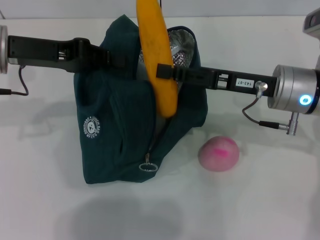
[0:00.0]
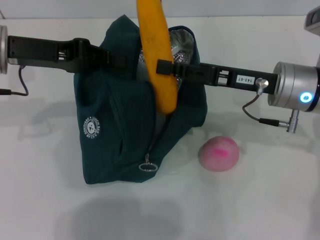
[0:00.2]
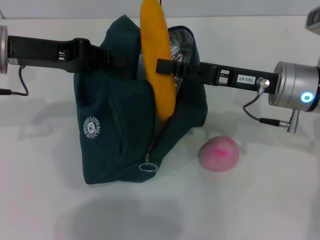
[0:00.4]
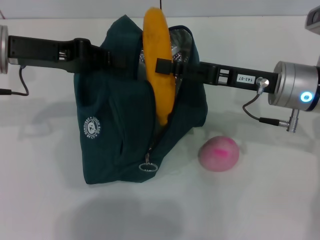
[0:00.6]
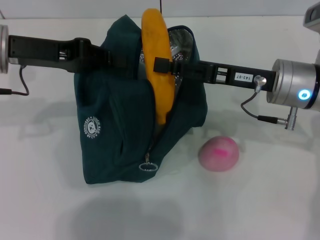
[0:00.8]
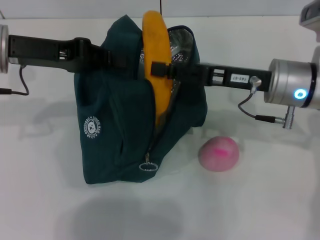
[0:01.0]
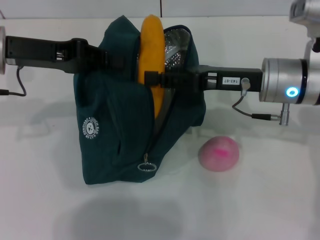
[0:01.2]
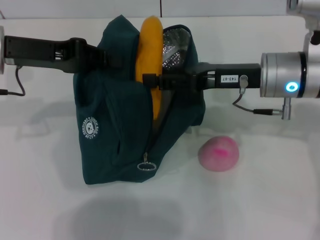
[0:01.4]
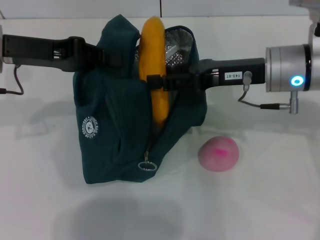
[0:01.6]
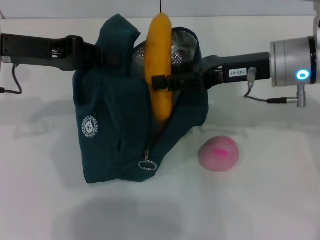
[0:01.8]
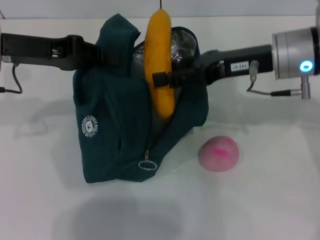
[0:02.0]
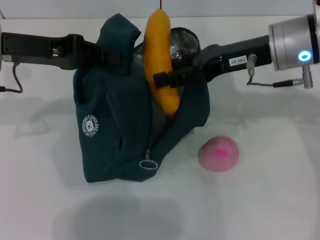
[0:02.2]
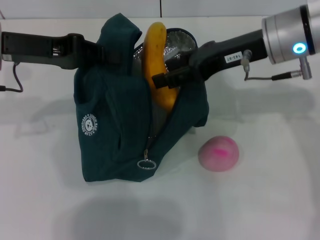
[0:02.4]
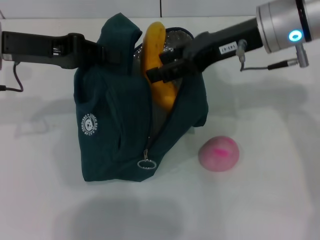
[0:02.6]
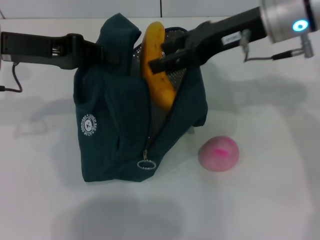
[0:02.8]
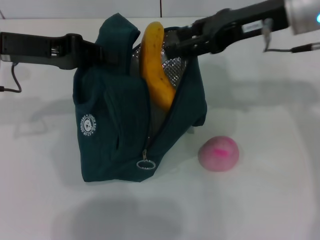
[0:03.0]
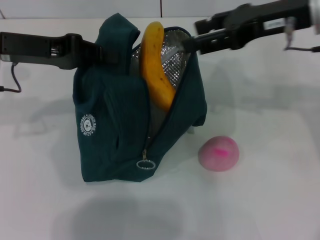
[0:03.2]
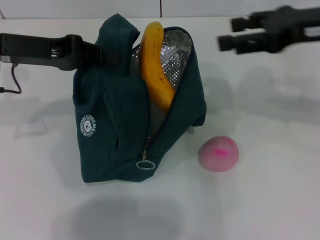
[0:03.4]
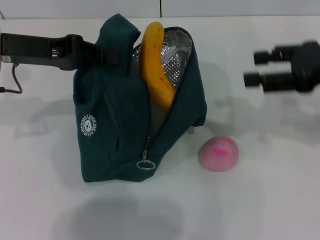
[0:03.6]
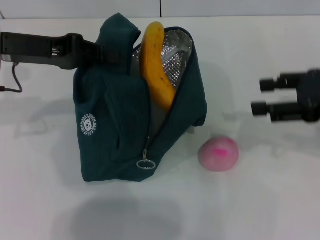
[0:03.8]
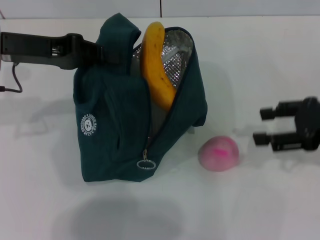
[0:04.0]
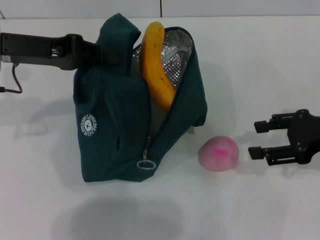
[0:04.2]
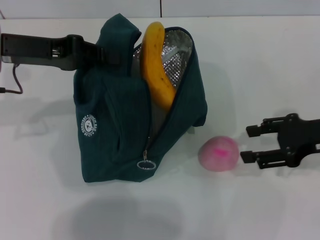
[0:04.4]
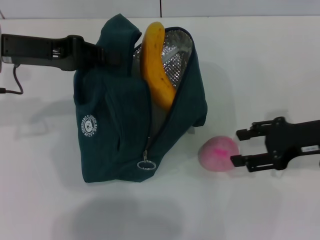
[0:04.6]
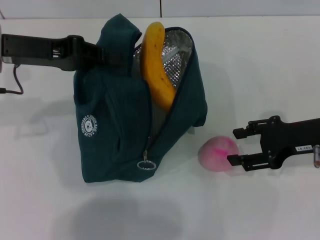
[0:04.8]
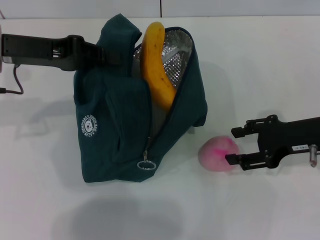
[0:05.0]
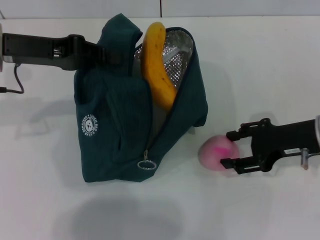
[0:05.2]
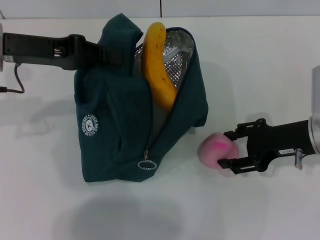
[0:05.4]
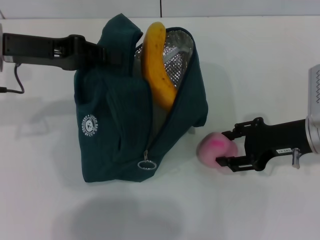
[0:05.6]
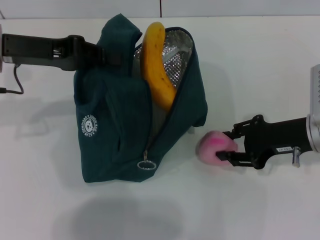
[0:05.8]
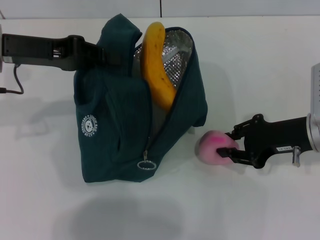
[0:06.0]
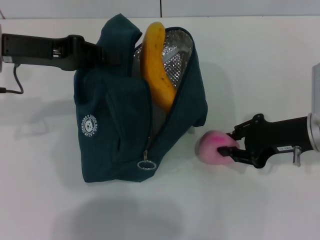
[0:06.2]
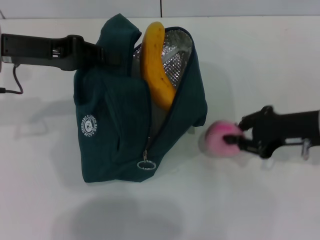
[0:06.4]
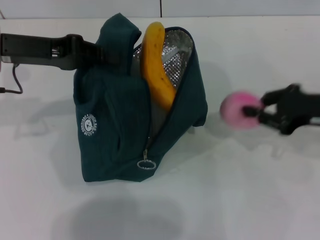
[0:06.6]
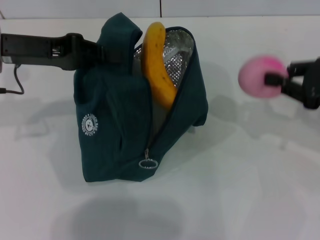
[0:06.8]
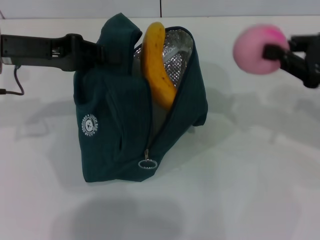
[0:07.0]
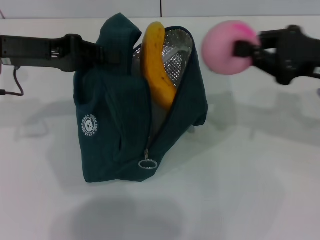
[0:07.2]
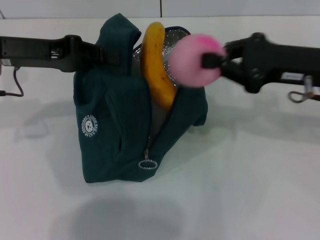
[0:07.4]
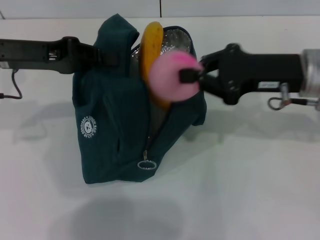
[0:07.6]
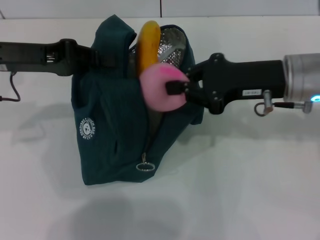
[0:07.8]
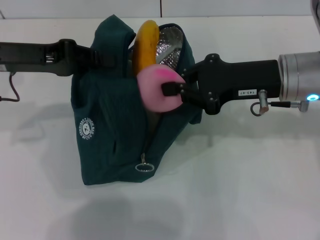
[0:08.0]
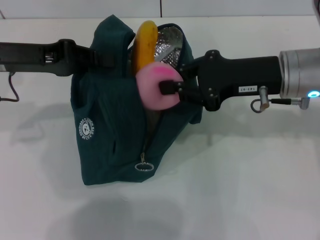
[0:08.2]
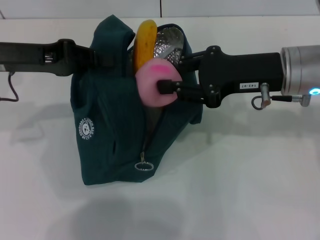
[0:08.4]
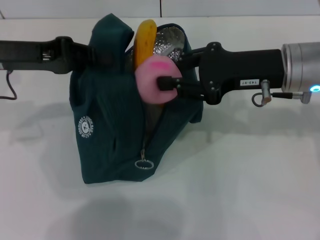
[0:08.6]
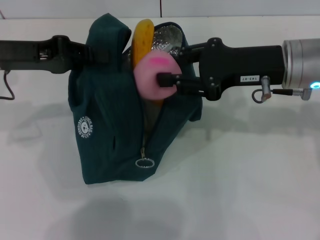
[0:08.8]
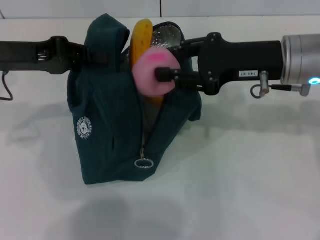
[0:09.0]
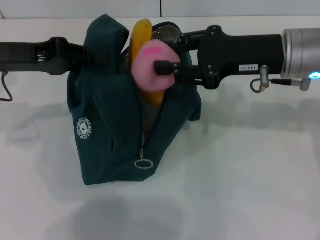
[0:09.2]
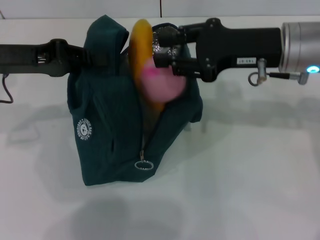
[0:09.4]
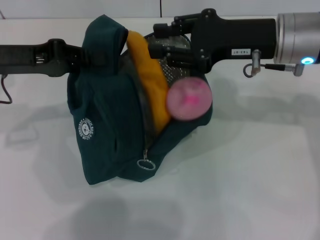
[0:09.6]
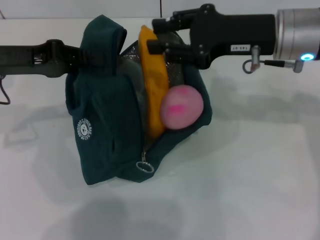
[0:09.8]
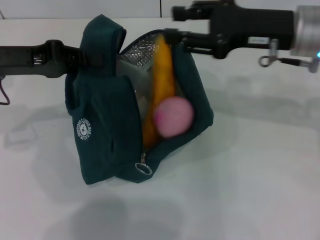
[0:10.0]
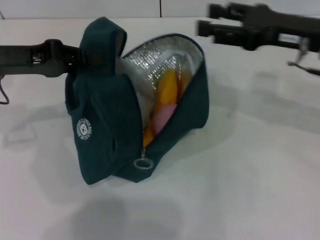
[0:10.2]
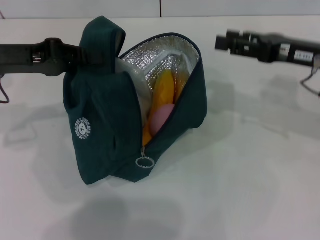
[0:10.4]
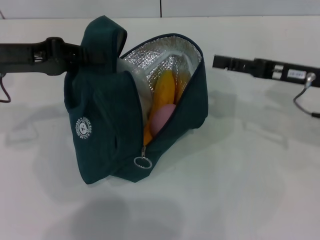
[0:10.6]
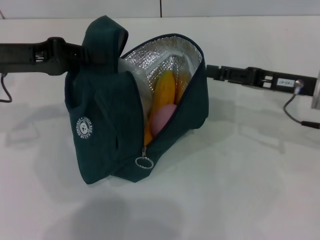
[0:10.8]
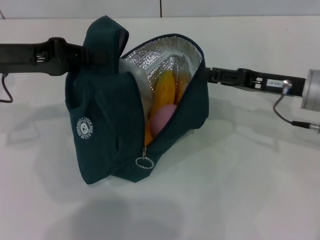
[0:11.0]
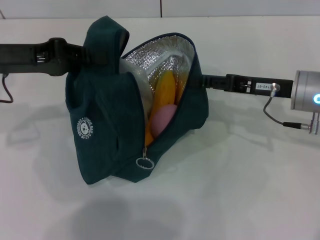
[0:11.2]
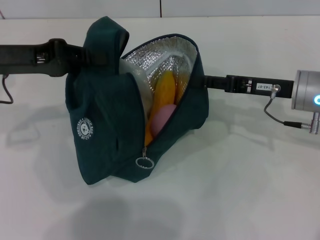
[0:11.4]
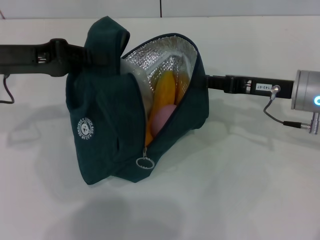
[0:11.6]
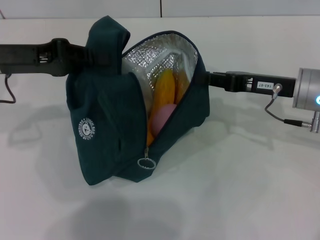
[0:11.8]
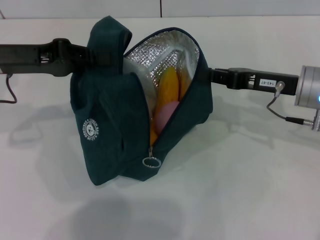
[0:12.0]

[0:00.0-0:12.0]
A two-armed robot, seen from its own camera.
Step, 0:00.0 to 0:02.2: Put the banana into the lunch bag with your right hand.
Step, 0:02.4 to 0:06.0: Grab the peach with your right hand.
0:00.0 to 0:01.6: The grippers move only a little.
0:01.6 to 0:03.0: The right gripper moves upward, roughly 10 cm.
0:03.0 to 0:04.4: The right gripper travels downward, to the right and backward by approximately 20 cm.
0:04.4 to 0:06.0: The right gripper changes place by about 5 cm.
0:06.0 to 0:07.6: The right gripper is displaced upward by about 5 cm, travels to the right and back again, roughly 10 cm each way, and closes its fingers.
0:07.6 to 0:09.0: The right gripper opens up.
0:09.0 to 0:10.4: The right gripper moves to the right, about 10 cm.
0:10.4 to 0:12.0: The right gripper ends up approximately 5 cm from where it was, and closes up.

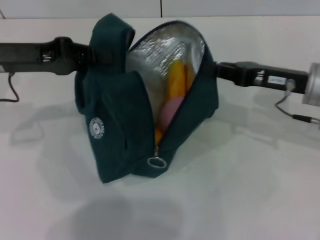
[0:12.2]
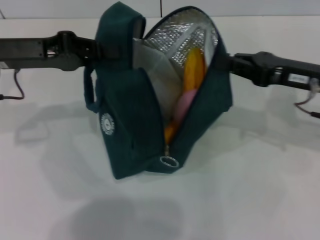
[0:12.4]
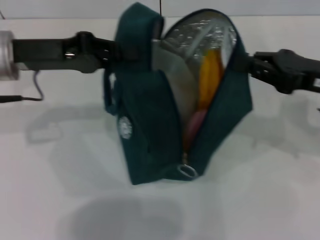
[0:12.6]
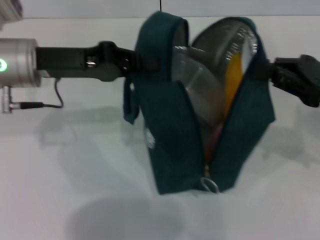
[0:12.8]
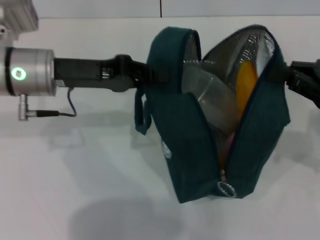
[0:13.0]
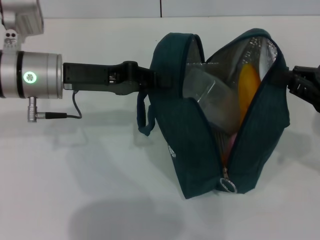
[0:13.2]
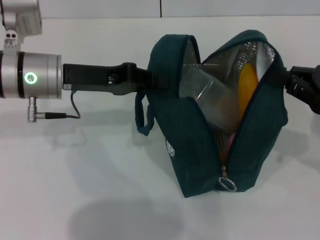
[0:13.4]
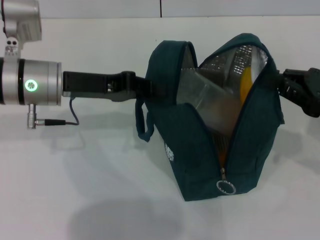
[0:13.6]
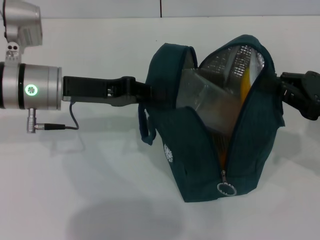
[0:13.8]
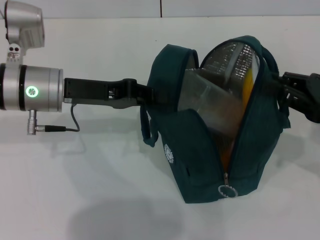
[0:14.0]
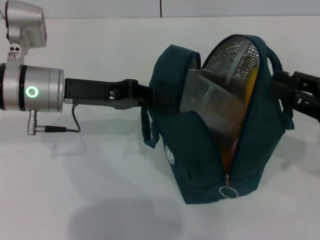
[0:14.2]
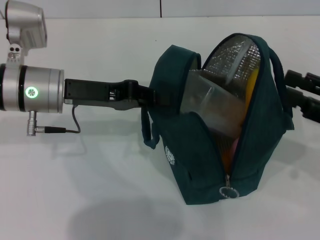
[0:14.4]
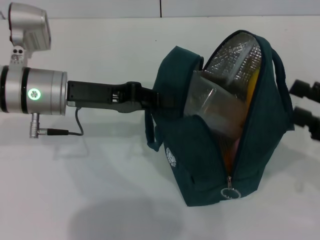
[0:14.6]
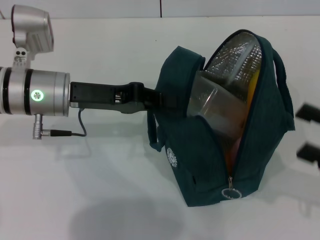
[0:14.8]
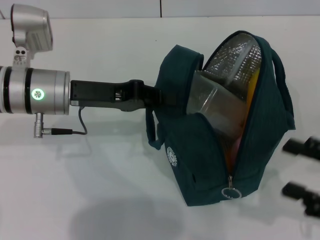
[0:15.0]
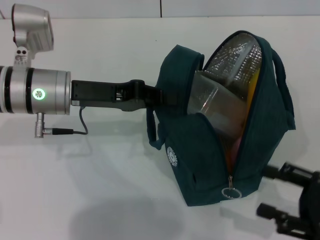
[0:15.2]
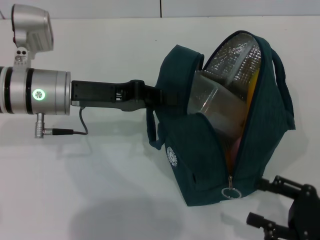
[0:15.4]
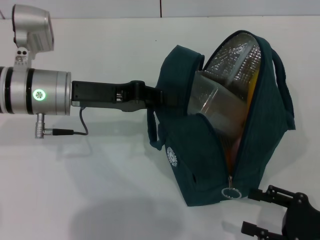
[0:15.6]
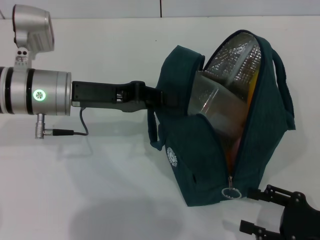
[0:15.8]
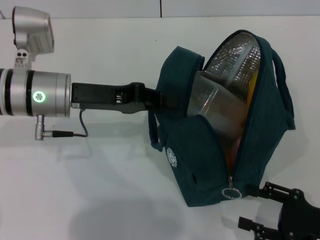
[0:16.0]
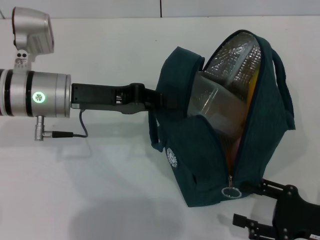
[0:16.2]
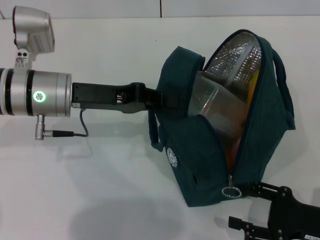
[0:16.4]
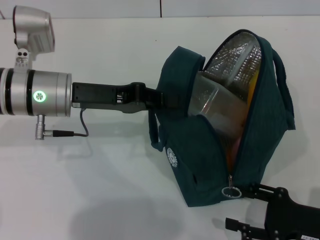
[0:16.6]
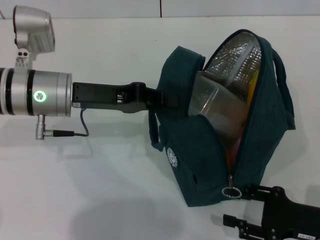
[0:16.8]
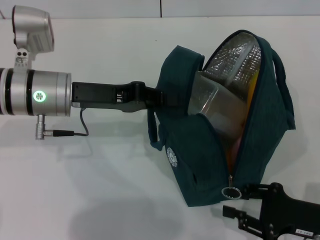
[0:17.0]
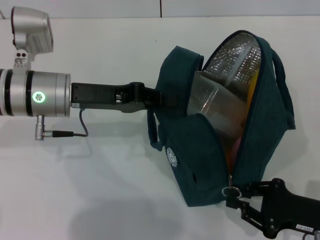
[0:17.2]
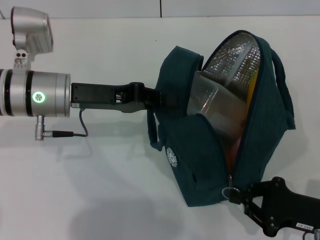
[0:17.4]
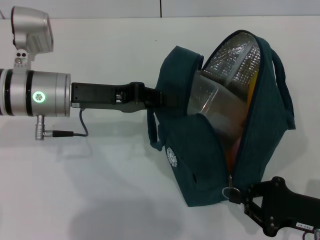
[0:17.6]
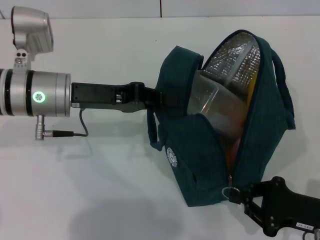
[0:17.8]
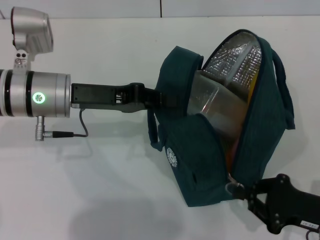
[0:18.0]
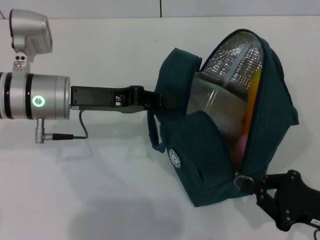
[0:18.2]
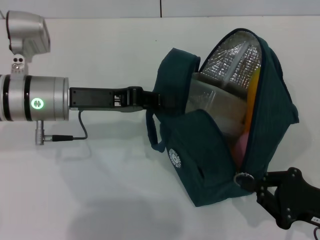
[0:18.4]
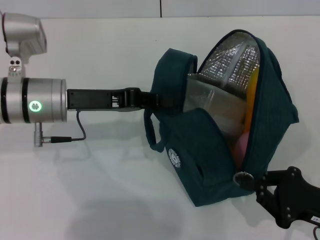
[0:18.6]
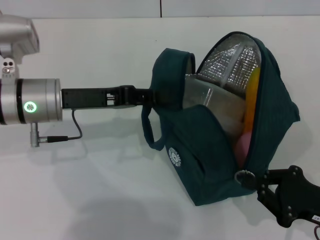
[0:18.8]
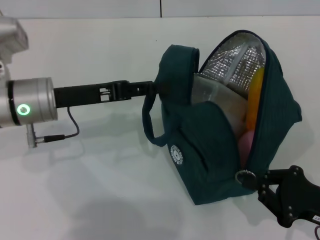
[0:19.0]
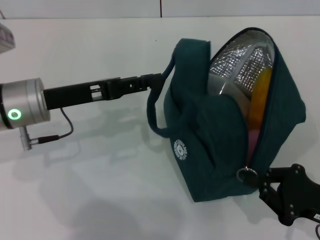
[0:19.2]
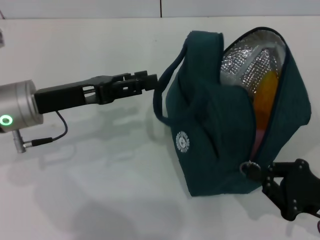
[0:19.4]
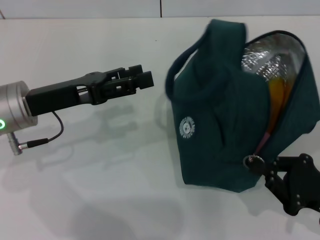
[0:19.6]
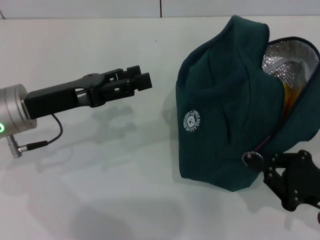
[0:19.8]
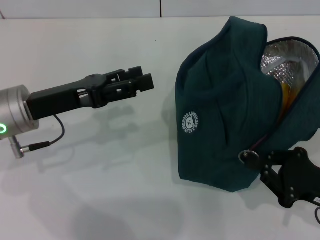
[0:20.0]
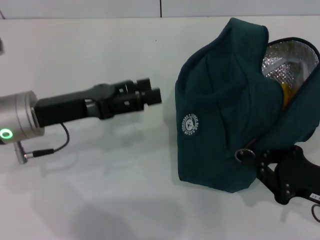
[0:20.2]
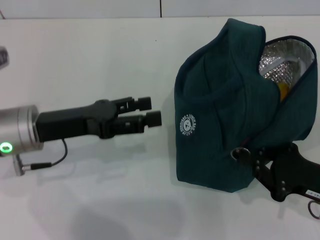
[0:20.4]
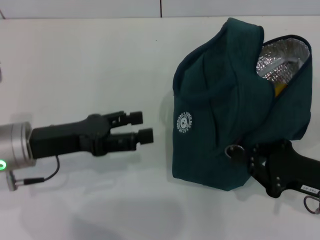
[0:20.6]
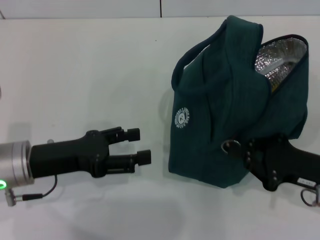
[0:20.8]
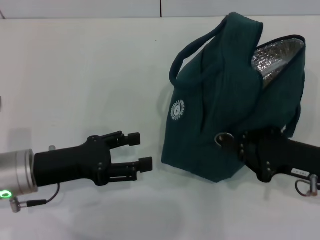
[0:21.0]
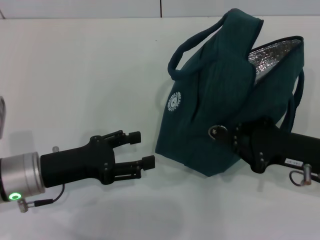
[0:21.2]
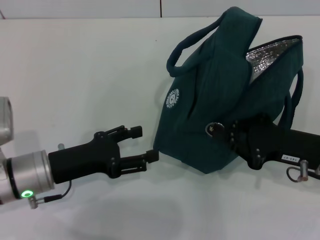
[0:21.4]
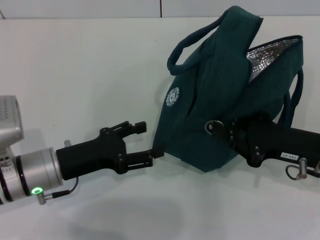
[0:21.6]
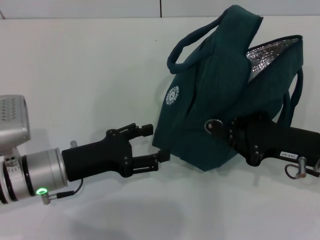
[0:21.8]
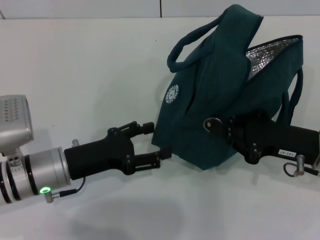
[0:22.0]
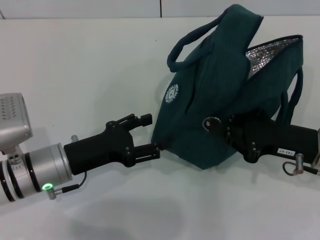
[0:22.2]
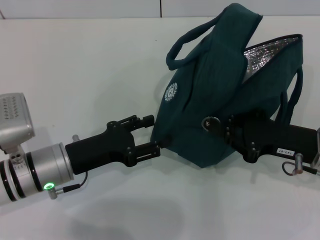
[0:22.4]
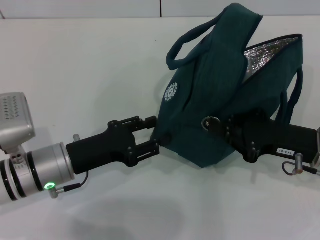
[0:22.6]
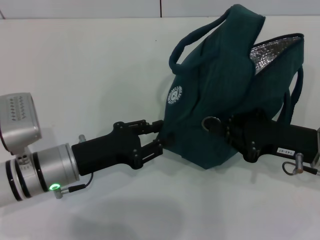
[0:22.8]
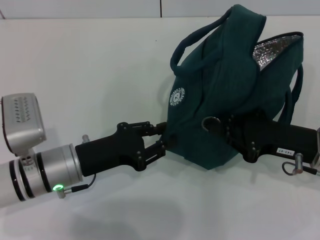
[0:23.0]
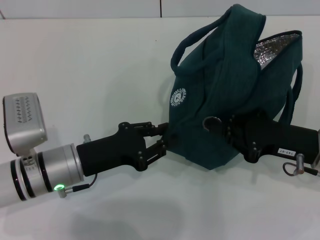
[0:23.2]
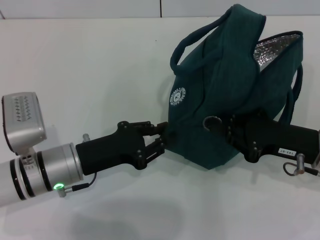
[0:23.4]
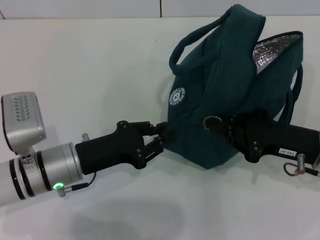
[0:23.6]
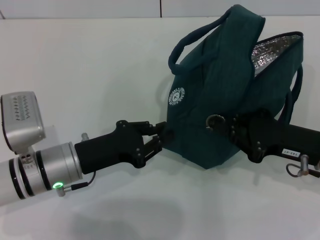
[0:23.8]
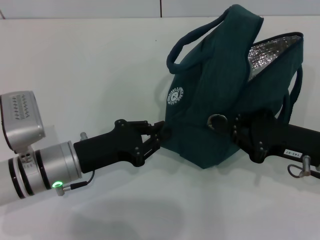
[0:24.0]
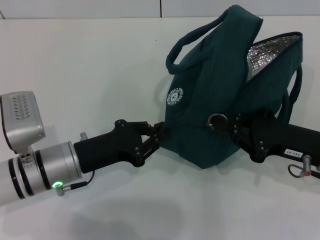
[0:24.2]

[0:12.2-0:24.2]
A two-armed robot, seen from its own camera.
Step, 0:12.2 to 0:14.2: Hold the lunch bag with your right hand.
Step, 0:14.4 to 0:19.0: Hold the lunch bag with your left hand.
0:12.2 to 0:13.8: The right gripper goes roughly 10 cm to the right and backward; the left gripper moves to the right, roughly 5 cm.
0:13.8 to 0:15.2: The right gripper goes some 15 cm backward and downward, and opens its fingers.
0:15.2 to 0:16.6: There are only small adjustments of the grippers.
0:16.6 to 0:18.2: The right gripper closes up.
0:18.2 to 0:19.8: The left gripper ends up some 5 cm from where it was, and opens up.
0:19.8 to 0:21.2: The right gripper moves forward, about 5 cm. The left gripper heads downward and backward, covering some 10 cm.
0:21.2 to 0:22.6: The grippers stay close to where they were, moving slightly.
0:22.6 to 0:24.2: The left gripper closes its fingers.
